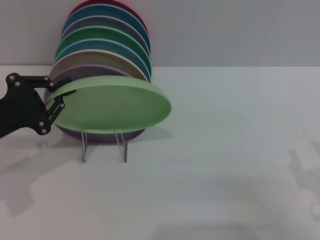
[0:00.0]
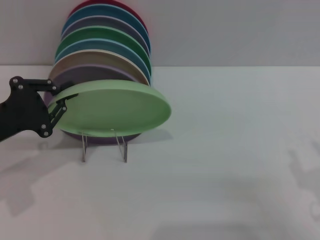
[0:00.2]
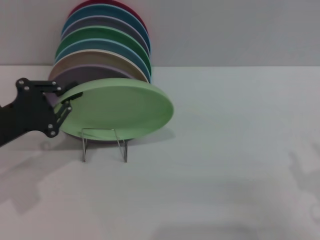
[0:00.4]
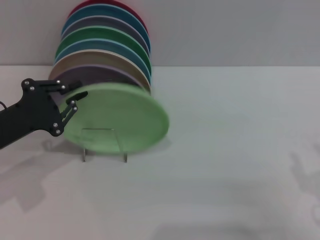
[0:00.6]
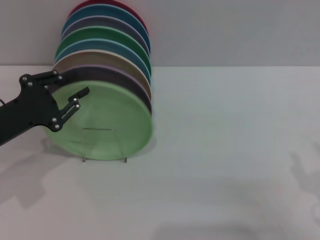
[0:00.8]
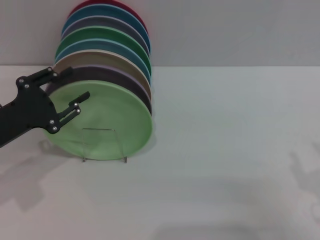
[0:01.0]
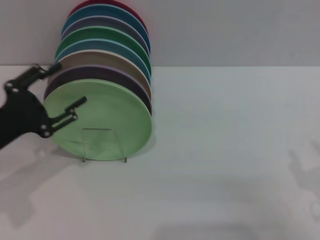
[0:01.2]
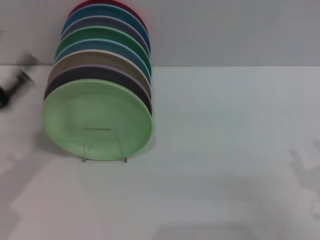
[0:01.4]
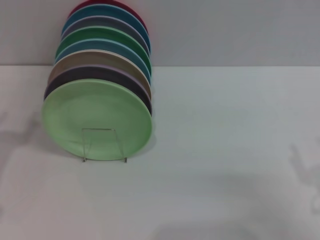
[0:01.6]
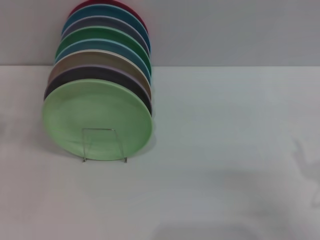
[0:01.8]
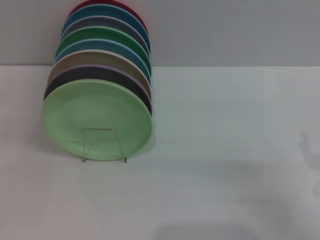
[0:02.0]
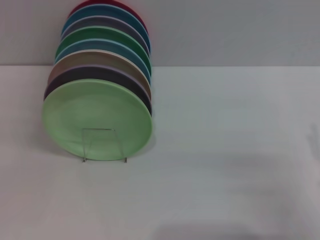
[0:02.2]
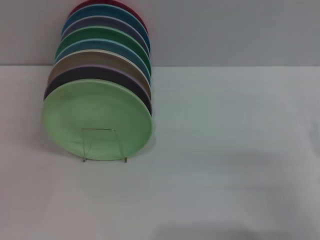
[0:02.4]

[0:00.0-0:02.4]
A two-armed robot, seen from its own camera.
Task of the whole recording: Grip the plate with one hand, pass it to the other, then set it on the shelf.
0:00.0 to 0:01.2: The left gripper opens.
0:01.2 to 0:02.4: The left gripper shifts about 10 cm to the left, downward and backward.
